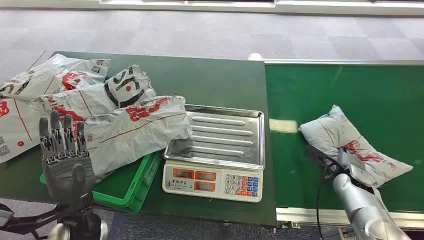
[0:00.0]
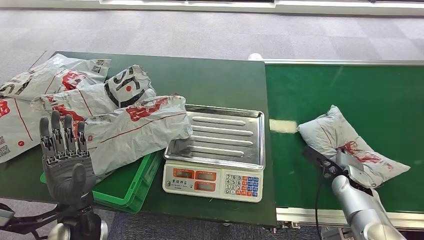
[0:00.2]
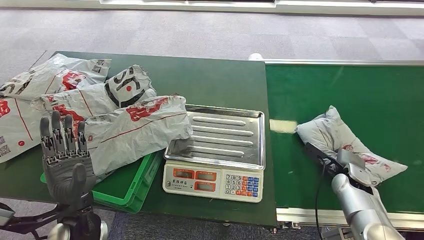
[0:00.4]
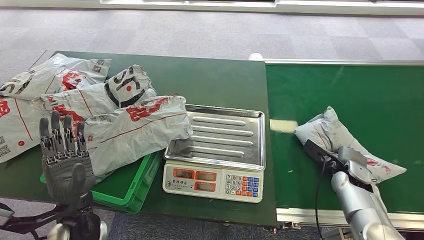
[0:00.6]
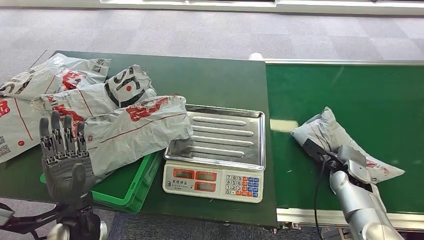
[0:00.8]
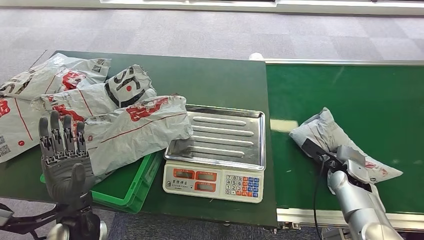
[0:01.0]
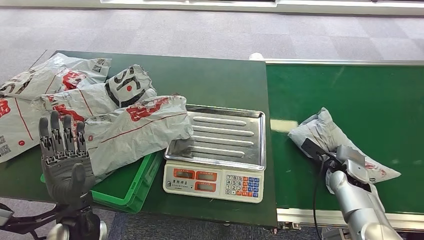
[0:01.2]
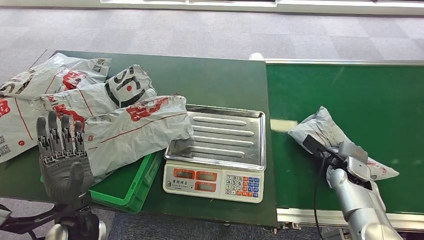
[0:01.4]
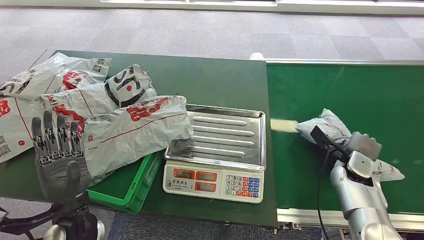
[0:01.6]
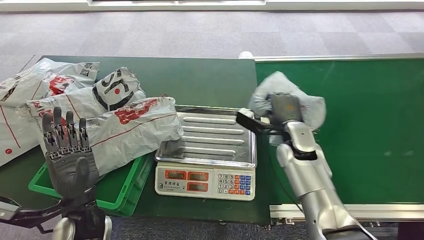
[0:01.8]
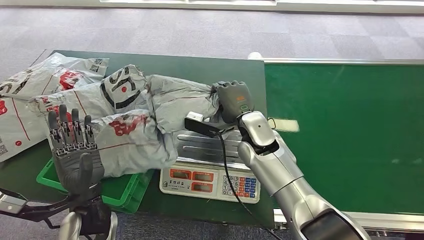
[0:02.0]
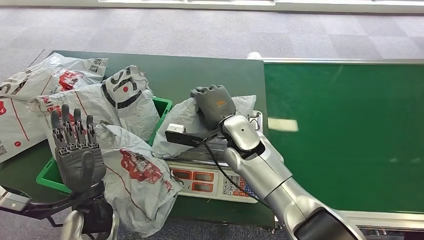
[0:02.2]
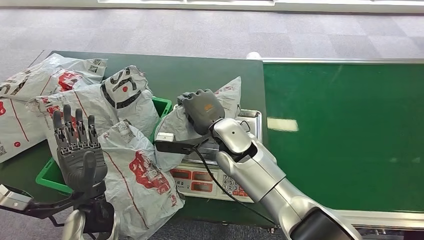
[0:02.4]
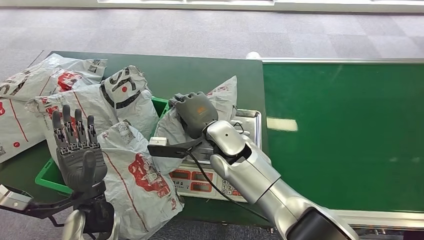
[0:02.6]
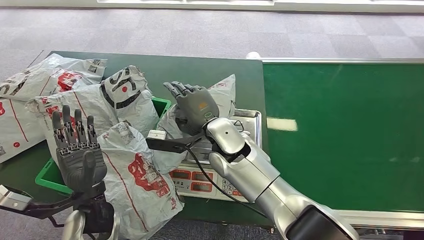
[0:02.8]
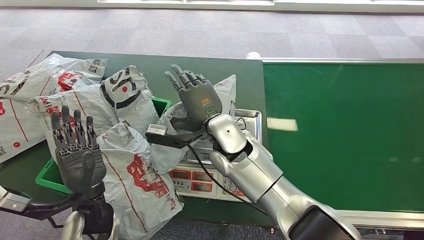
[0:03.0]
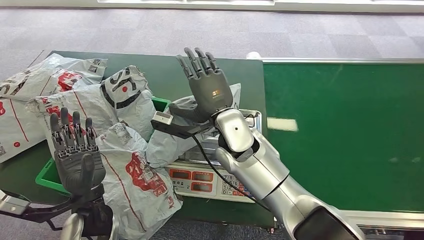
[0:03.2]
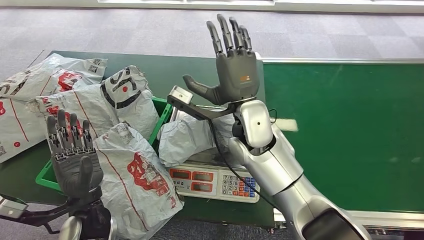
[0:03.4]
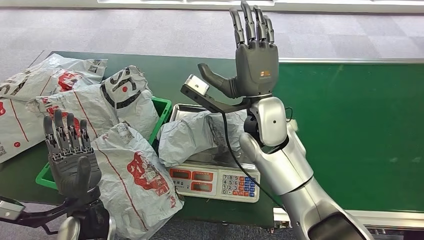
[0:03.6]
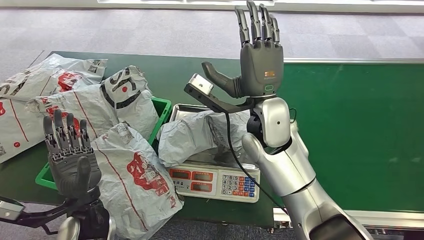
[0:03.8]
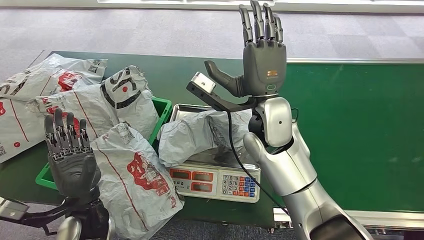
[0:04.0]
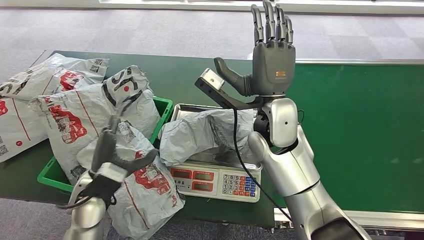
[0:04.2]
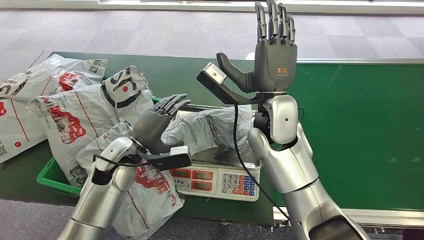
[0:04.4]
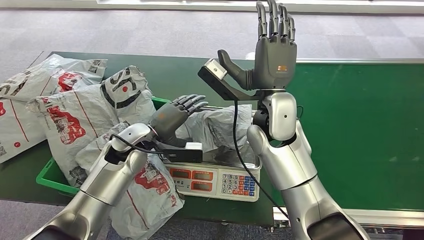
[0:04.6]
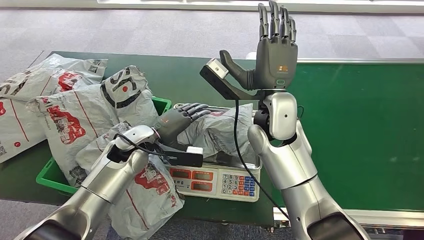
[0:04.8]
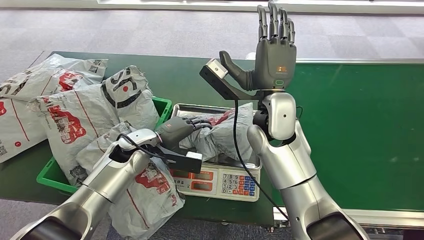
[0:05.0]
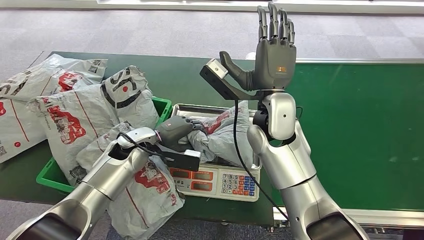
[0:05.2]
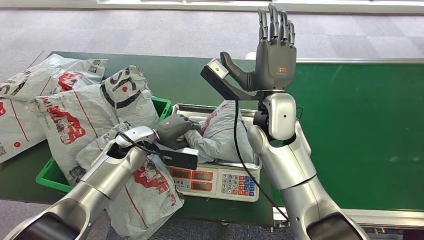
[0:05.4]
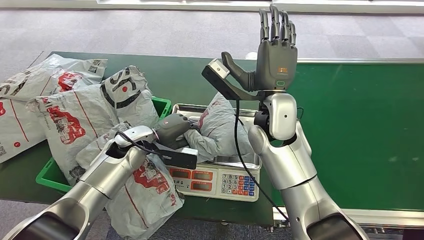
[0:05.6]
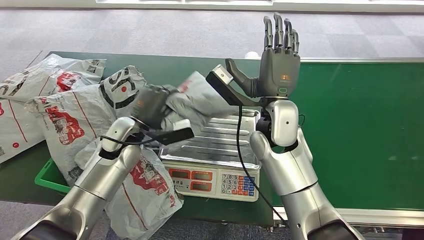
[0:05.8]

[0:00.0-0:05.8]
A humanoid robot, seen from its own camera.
Step, 0:00.0 to 0:01.8: Pick up the package from the conveyor belt.
Step, 0:02.0 to 0:03.4: Place the package onto the inbound machine.
Step, 0:05.4 to 0:05.8: Pick up the package from the inbound machine.

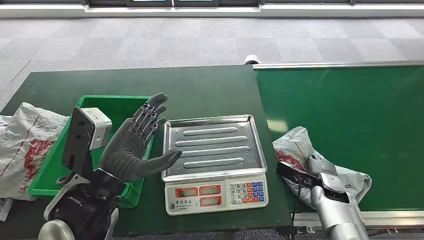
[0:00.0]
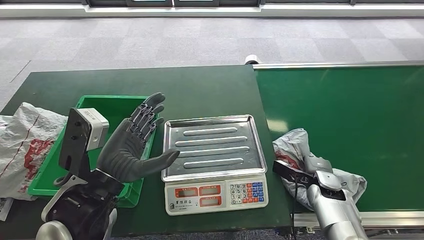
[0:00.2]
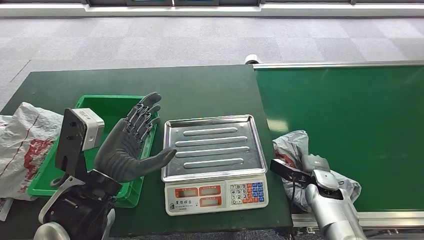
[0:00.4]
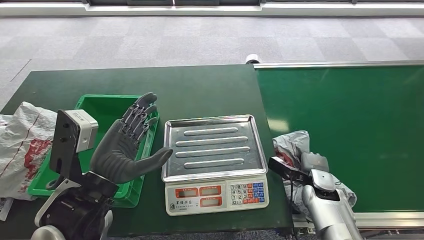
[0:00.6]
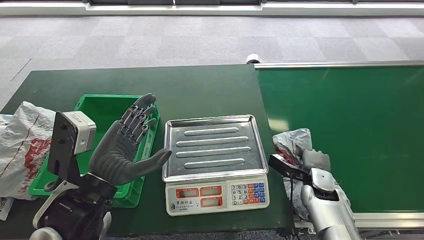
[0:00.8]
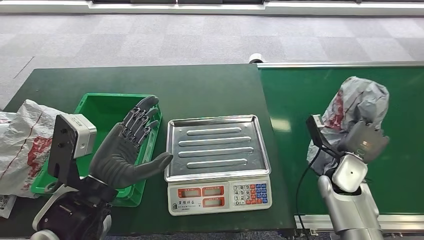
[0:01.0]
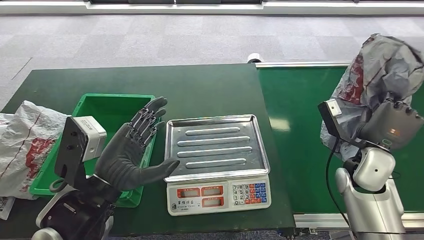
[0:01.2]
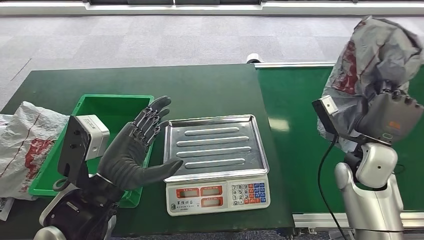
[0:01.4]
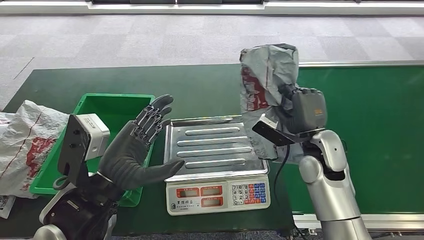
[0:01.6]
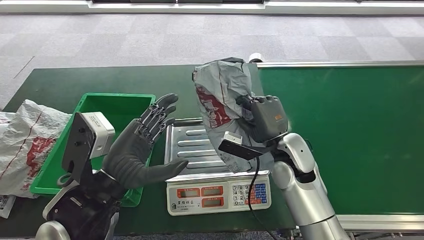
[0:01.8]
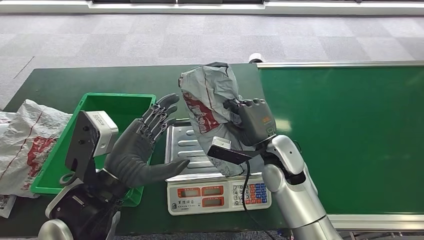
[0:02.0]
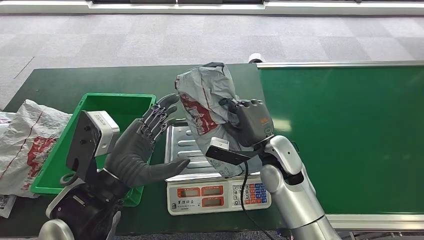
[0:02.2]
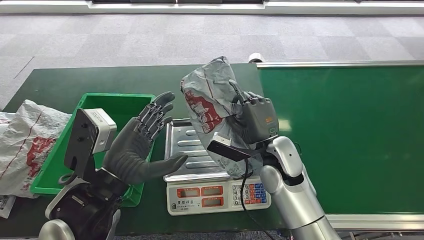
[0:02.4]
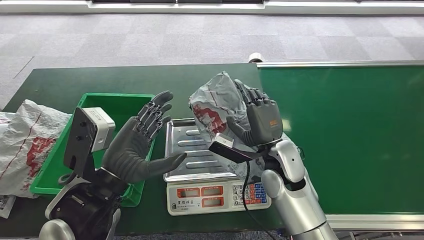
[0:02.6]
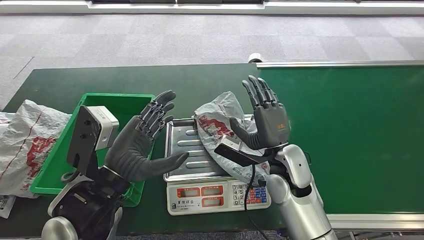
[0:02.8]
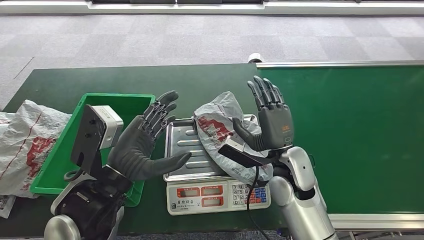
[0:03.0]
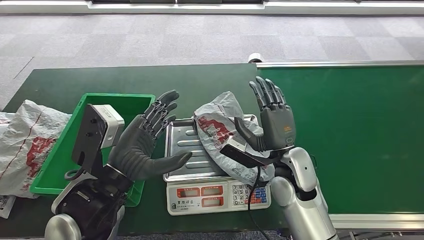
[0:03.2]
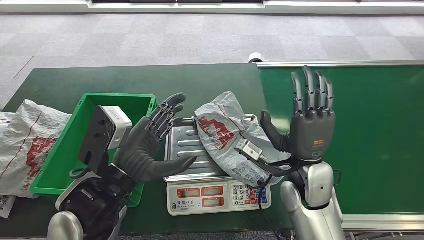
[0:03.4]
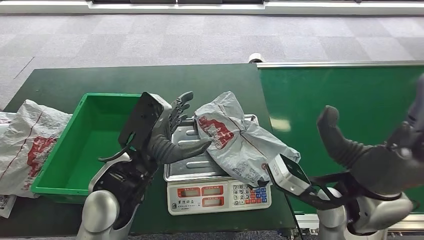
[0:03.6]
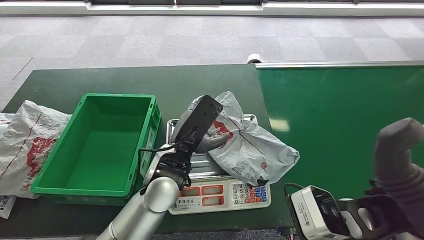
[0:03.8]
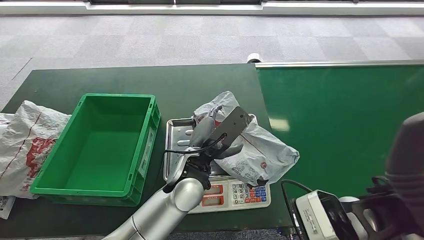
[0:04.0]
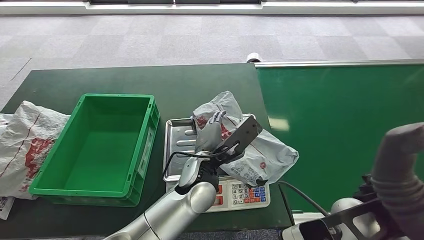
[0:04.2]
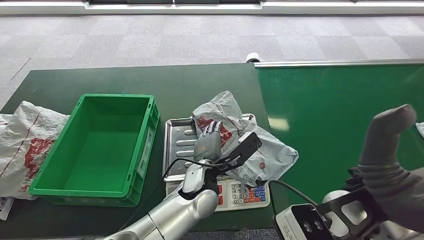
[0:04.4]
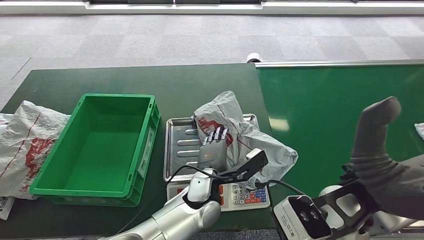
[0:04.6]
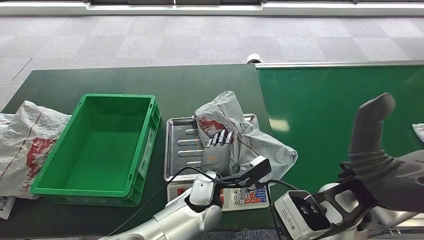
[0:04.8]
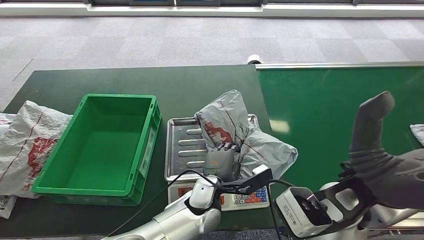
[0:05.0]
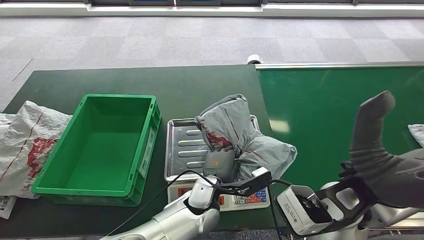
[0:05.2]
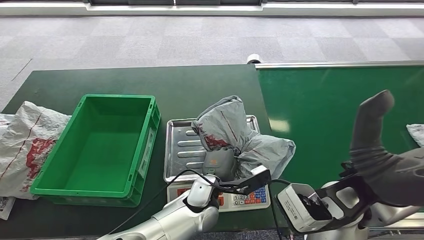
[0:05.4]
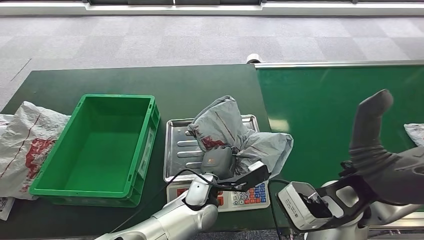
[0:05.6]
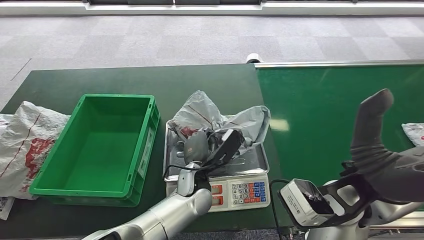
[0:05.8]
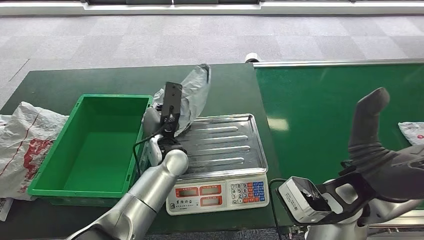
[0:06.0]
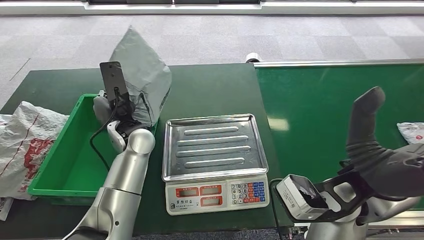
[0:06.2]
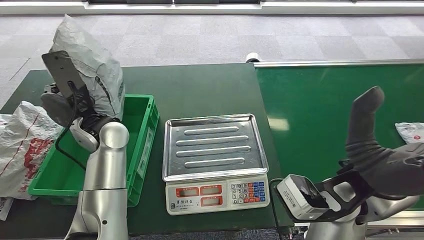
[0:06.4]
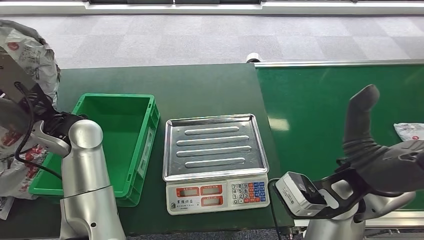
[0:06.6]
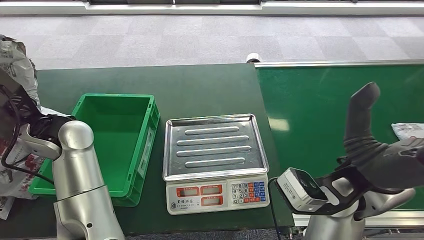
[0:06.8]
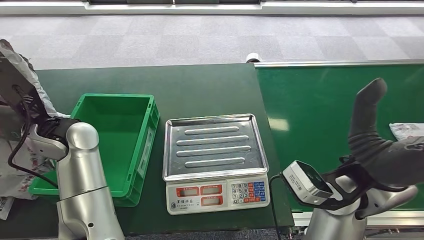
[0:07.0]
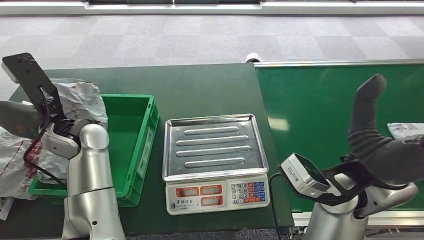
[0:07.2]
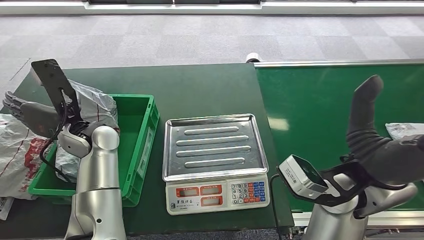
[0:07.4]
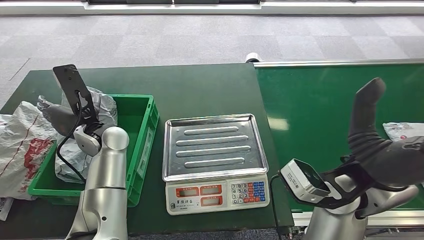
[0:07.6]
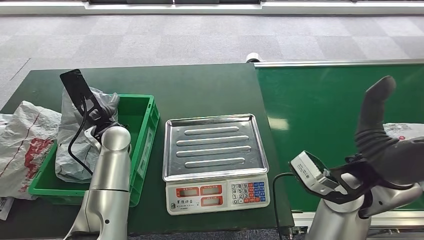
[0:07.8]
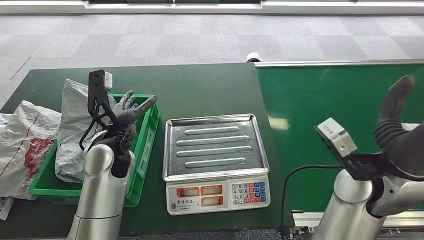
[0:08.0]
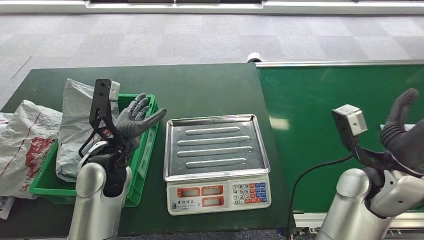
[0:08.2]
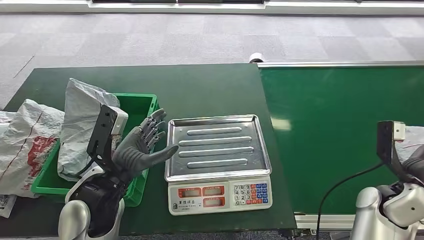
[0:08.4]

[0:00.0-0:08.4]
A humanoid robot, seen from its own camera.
Step, 0:00.0 to 0:01.0: Pick up the package from the conveyor belt.
Step, 0:02.2 to 0:03.2: Place the package onto the inbound machine.
Step, 0:04.4 to 0:06.2: Pick up the package from the inbound machine.
Step, 0:07.0 to 0:08.2: Place the package into the parcel locker.
